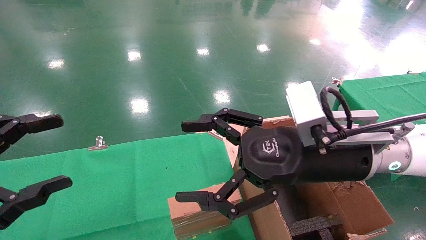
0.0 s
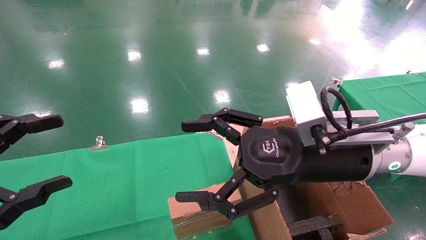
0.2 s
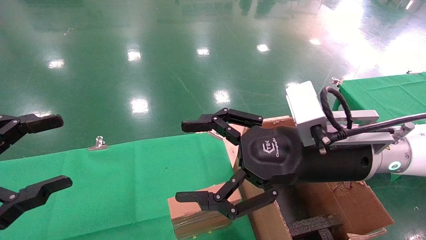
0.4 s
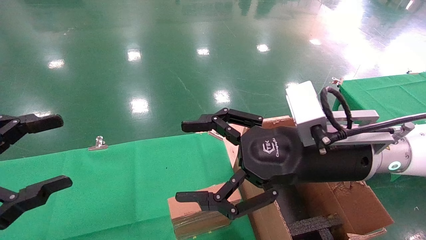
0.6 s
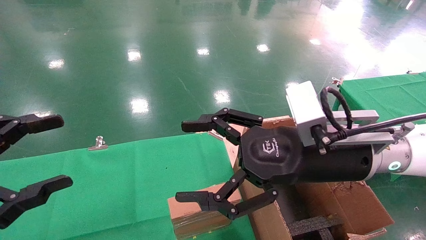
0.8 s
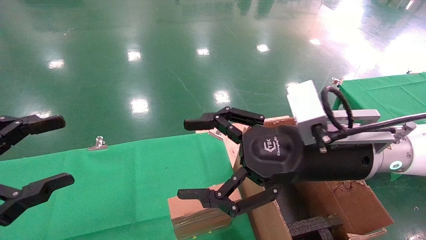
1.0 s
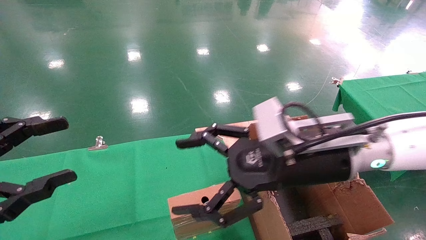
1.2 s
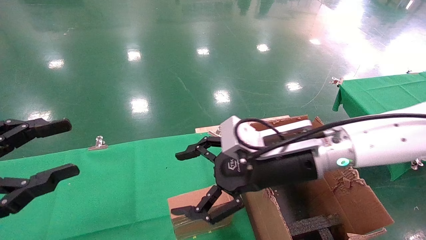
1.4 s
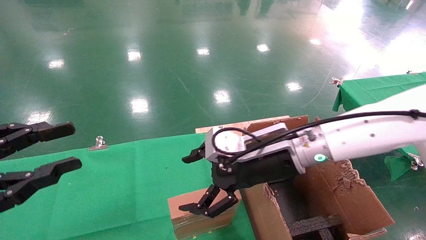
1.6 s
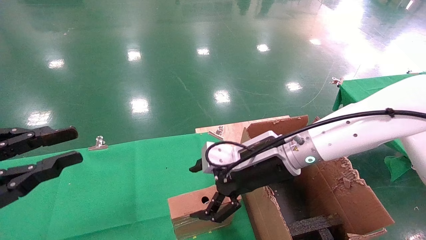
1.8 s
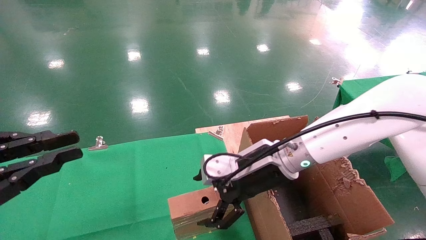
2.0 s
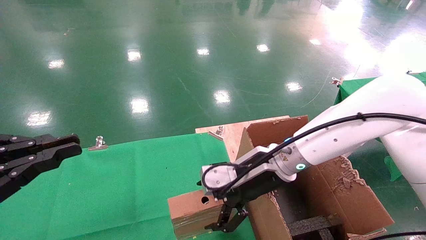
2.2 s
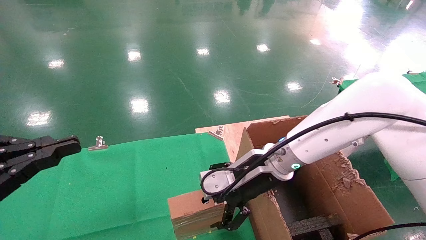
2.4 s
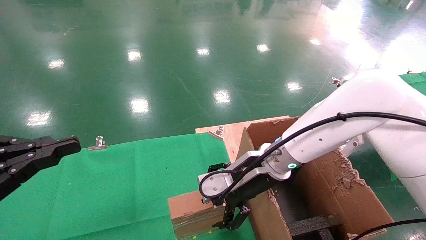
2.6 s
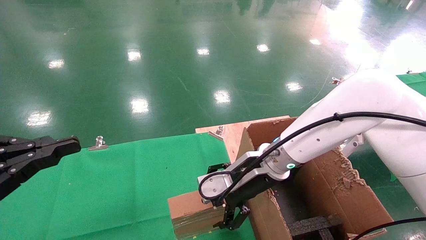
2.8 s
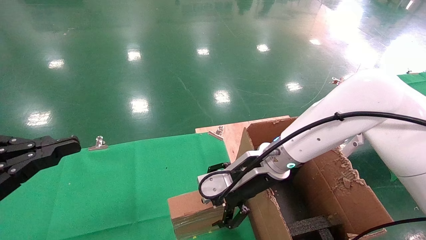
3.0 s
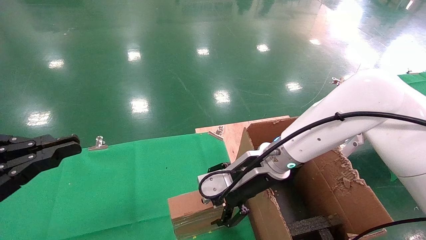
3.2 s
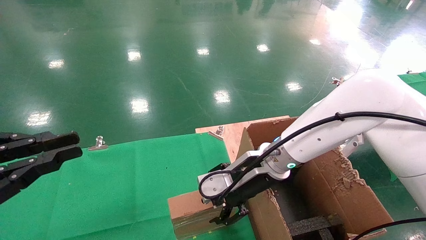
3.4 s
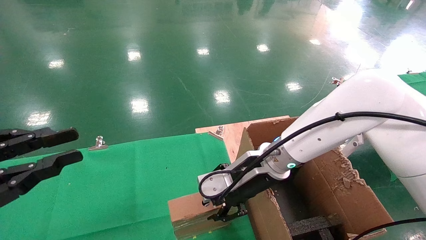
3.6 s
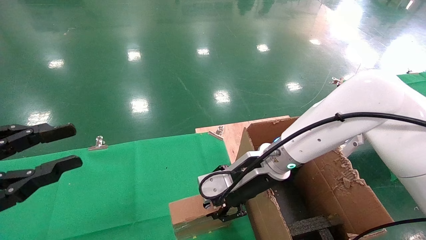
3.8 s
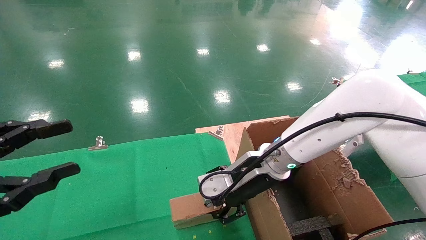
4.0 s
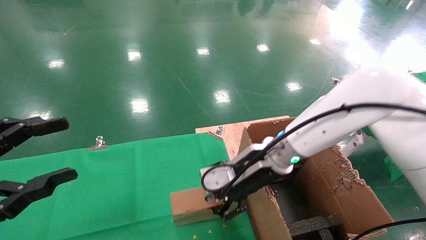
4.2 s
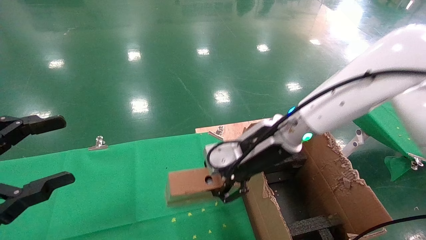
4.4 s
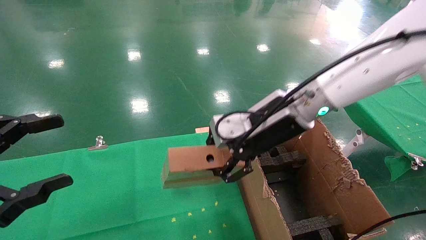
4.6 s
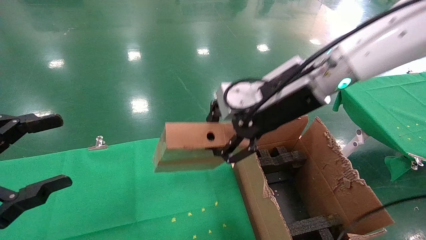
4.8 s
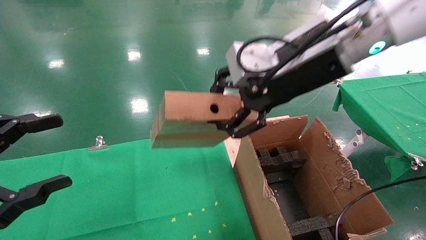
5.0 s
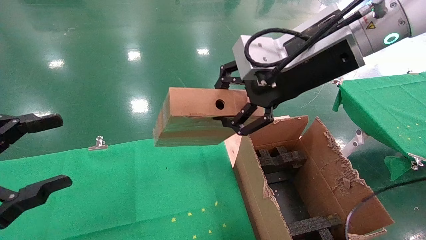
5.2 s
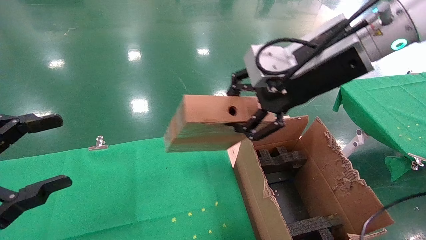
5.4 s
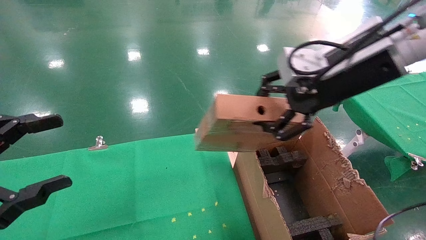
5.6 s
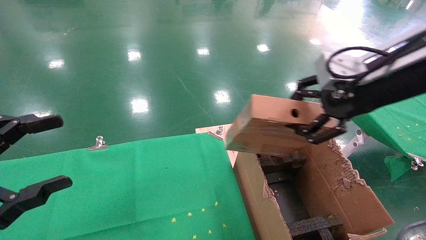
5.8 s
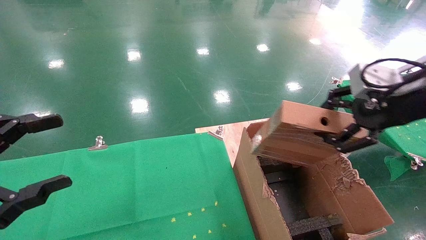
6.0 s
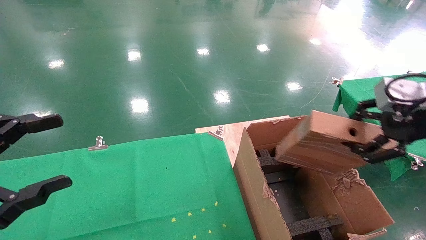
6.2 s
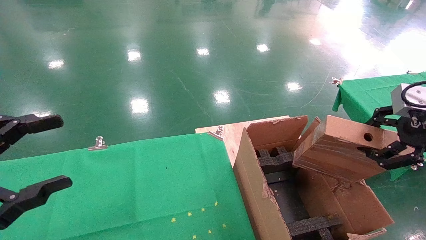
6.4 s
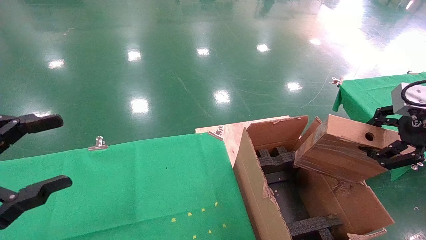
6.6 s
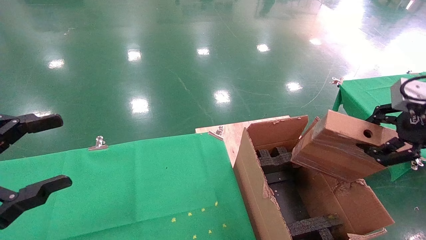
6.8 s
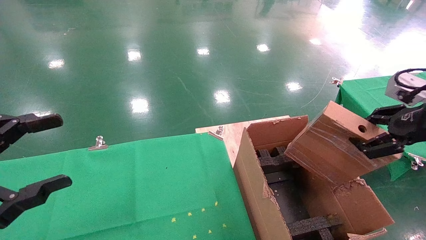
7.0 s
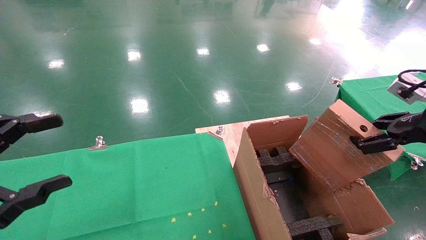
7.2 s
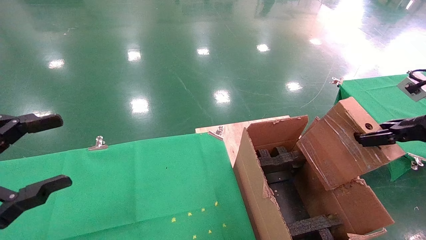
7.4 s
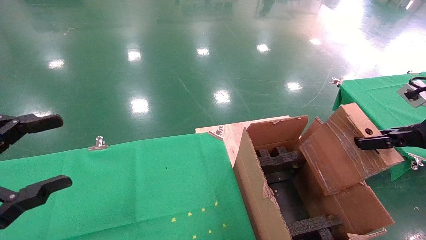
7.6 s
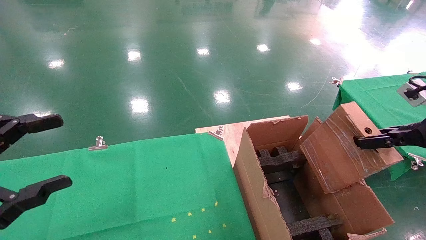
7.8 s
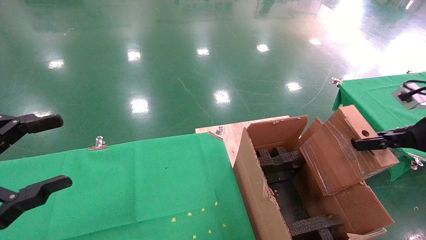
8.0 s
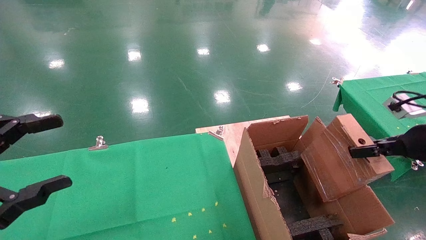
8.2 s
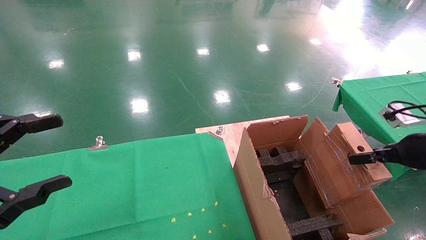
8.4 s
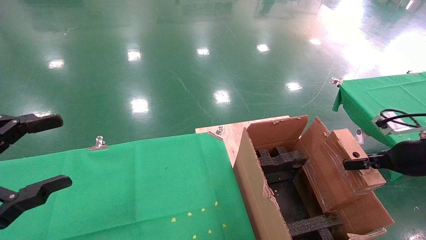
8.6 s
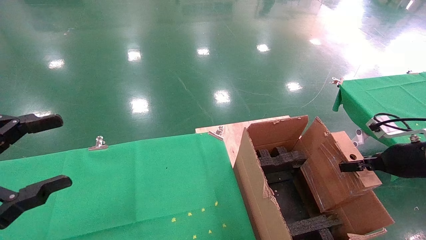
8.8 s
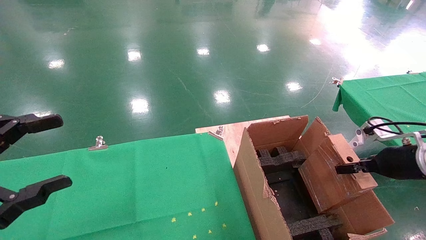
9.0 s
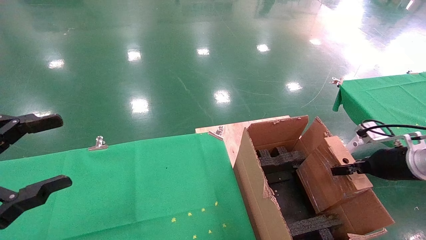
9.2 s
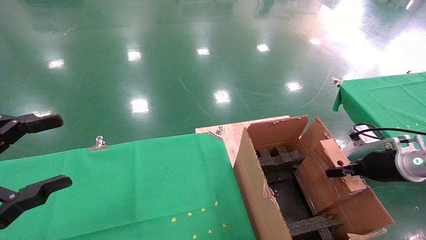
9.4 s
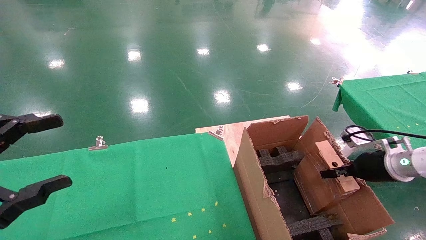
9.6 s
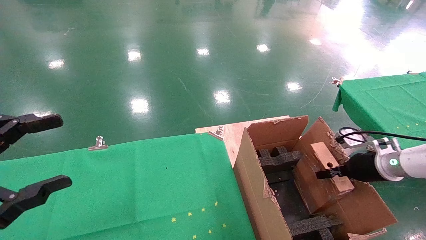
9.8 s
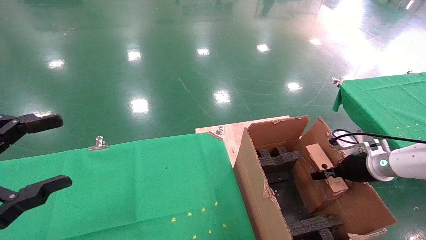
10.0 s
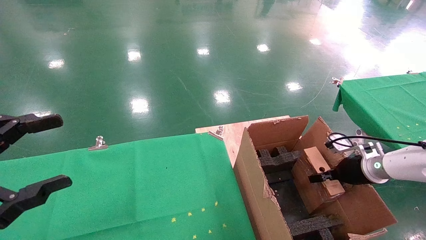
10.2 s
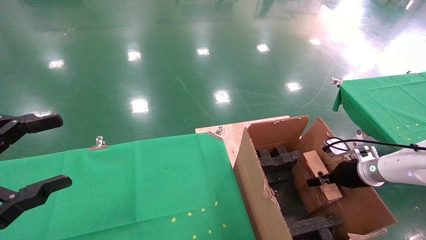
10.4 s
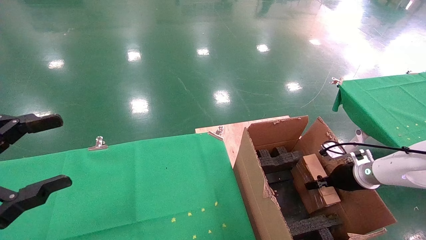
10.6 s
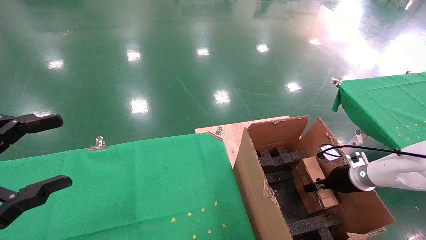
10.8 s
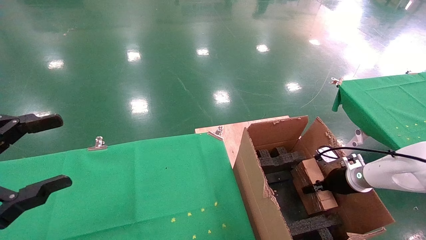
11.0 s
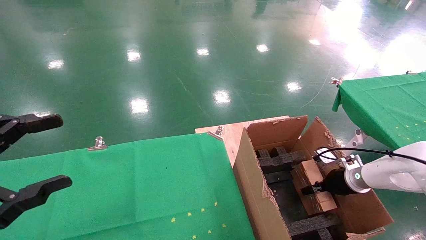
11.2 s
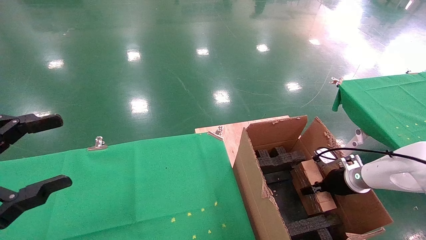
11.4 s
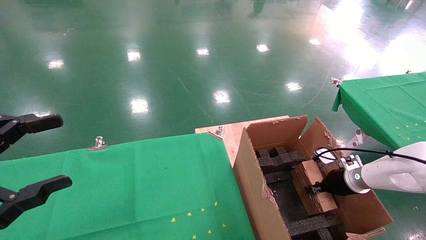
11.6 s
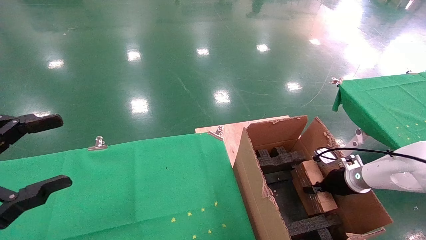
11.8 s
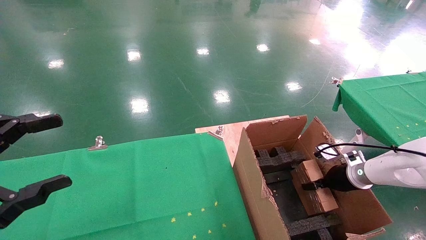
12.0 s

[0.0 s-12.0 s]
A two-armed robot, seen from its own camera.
Task of the whole recording: using a robotic arm to pick up a cardboard box and palace it the carton.
Step, 1.4 to 3.4 s: Pick up the mouse and the power cord paper box.
0.0 to 1.6 s: The left gripper closes its fingers. The right gripper shifts roughly 5 cm forward.
1.6 to 3.0 s: The right gripper ends up approximately 5 cm from where it was. The left gripper closes up.
3.0 to 4.4 s: The left gripper opens. Meanwhile the right gripper moves upward, some 5 cm, and closes up.
4.4 to 6.0 s: The right gripper shifts about 25 cm to the right, upward and backward.
6.0 to 7.6 s: The right gripper is displaced to the right and downward by some 15 cm.
7.6 to 9.0 s: The right gripper goes approximately 10 cm downward and forward.
9.0 to 10.4 s: The right gripper is displaced downward and forward by about 15 cm.
10.4 to 12.0 s: The grippers move only a little.

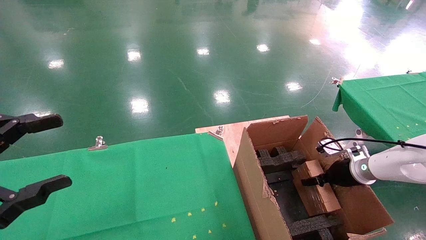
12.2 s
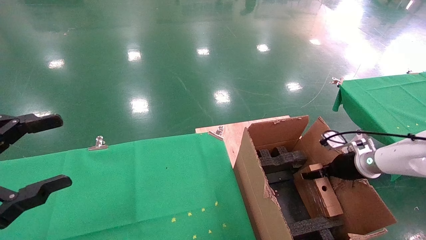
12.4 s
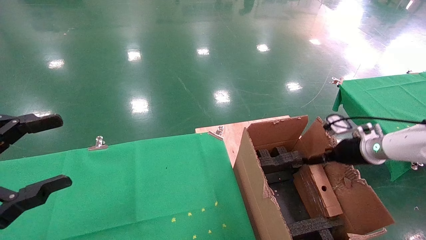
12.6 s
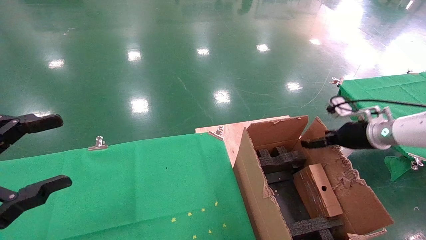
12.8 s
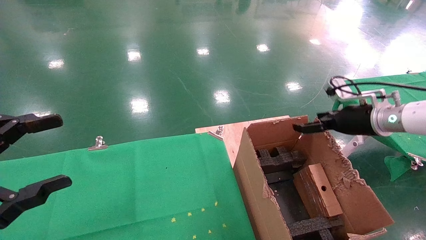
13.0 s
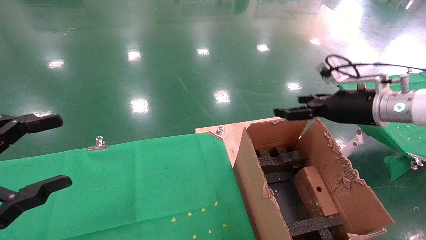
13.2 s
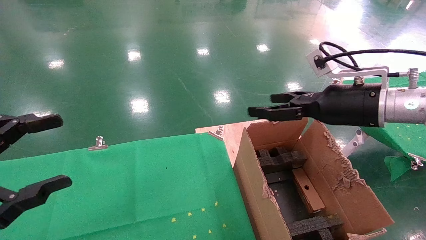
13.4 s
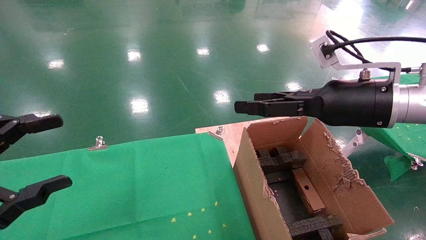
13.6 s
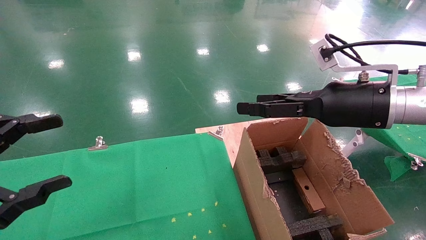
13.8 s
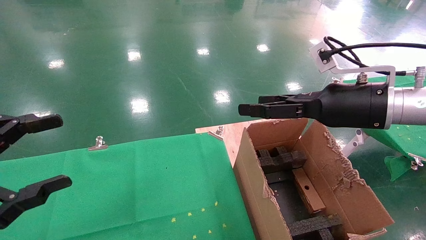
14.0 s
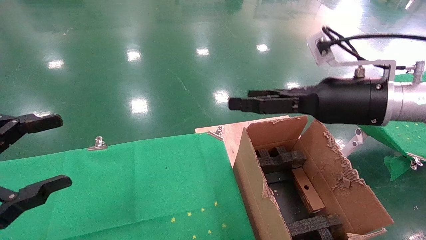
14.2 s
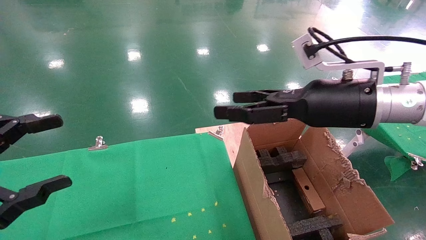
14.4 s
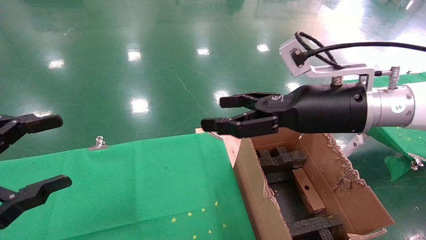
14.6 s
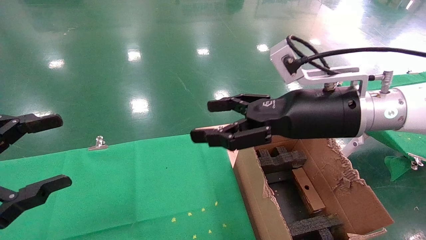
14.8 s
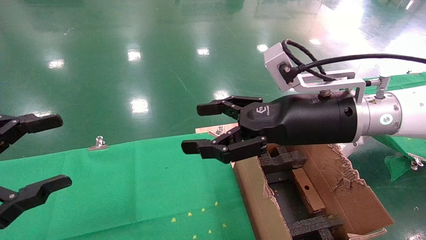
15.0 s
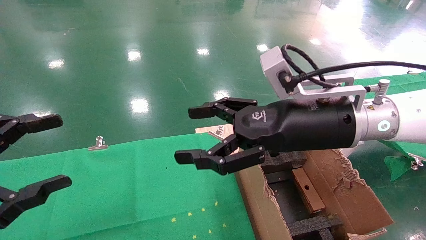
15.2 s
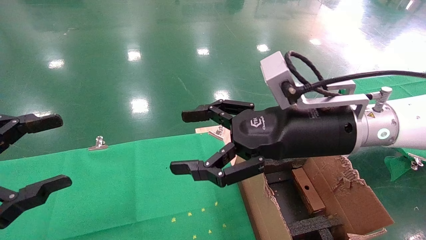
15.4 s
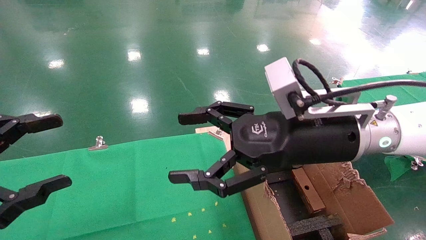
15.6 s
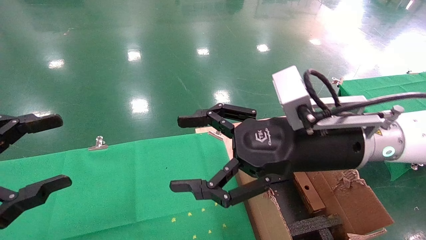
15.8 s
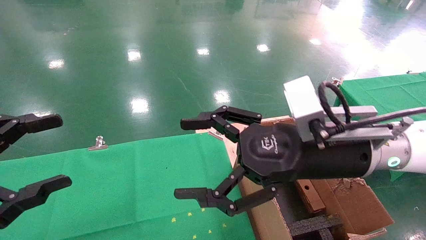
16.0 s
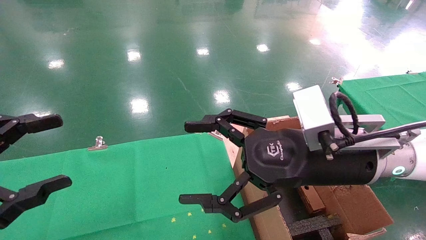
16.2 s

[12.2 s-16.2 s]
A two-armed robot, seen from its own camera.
Task of the whole recording: using a robotic arm to pick up a cardboard box and palace it the carton.
12.2 to 13.6 s: The right gripper is displaced upward, to the left and backward by roughly 30 cm, and opens.
13.6 to 14.8 s: The right gripper is displaced to the left by approximately 10 cm.
14.8 to 16.2 s: The right gripper shifts by approximately 5 cm.
